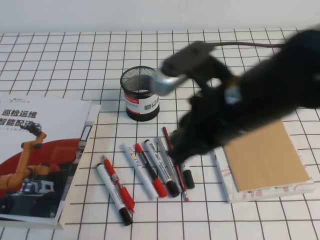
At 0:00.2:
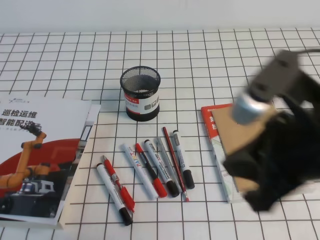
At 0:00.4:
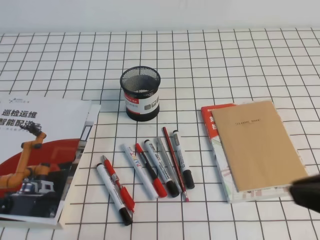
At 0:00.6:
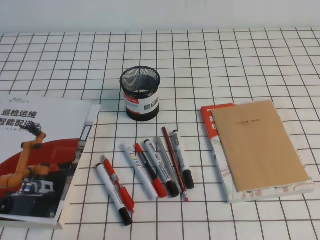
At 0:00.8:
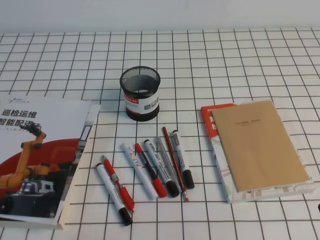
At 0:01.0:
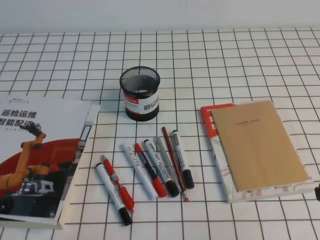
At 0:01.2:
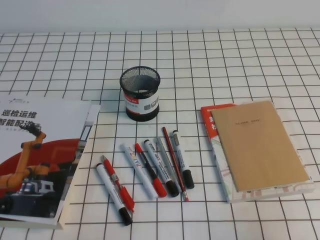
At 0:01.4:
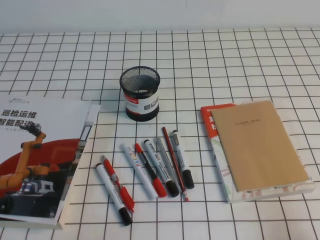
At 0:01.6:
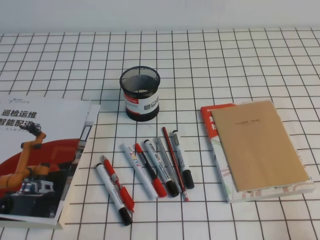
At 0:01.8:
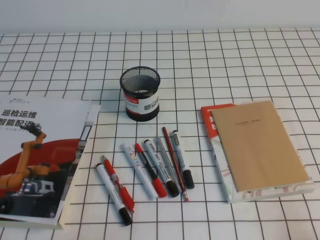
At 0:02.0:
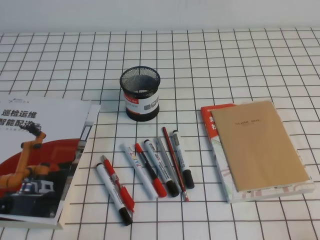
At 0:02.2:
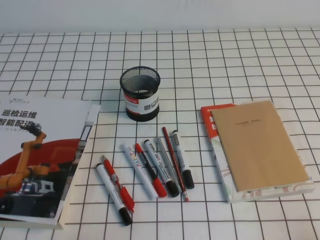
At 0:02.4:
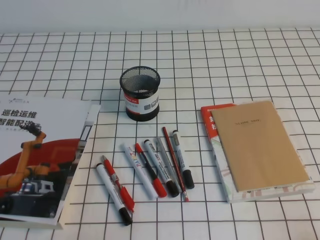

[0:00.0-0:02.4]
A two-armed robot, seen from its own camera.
Step, 0:00.0 to 0:02.4: Pick up the pen from the pen holder.
0:00.0 to 0:01.2: The right gripper is displaced to the right, backward and downward by roughly 25 cm.
0:01.2 to 0:02.4: The right gripper moves downward, approximately 10 cm.

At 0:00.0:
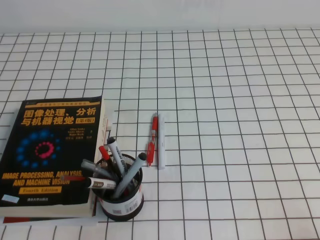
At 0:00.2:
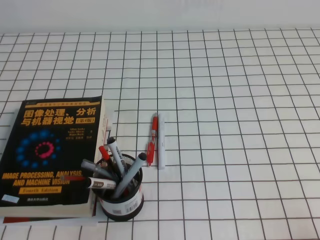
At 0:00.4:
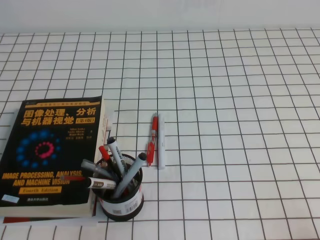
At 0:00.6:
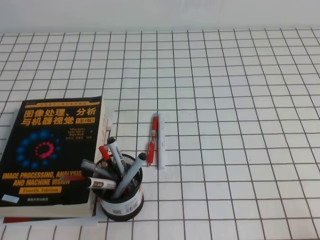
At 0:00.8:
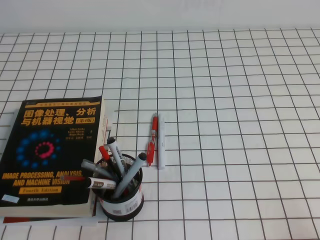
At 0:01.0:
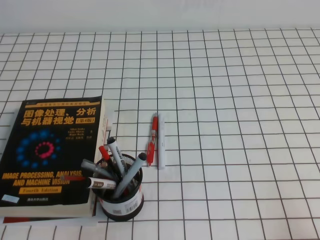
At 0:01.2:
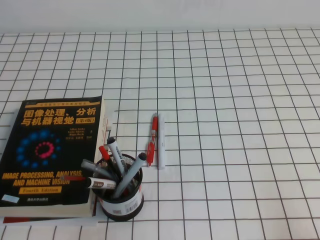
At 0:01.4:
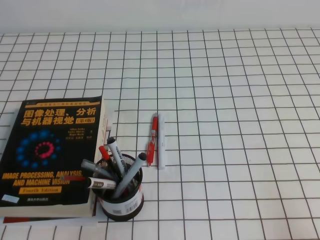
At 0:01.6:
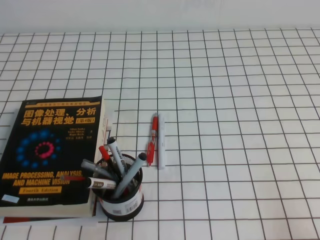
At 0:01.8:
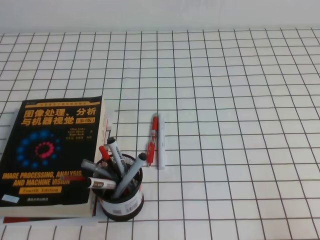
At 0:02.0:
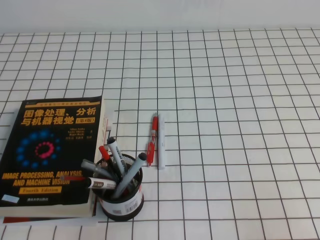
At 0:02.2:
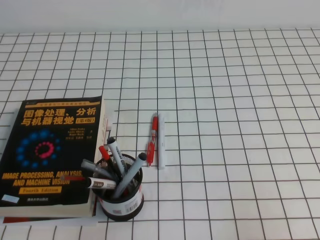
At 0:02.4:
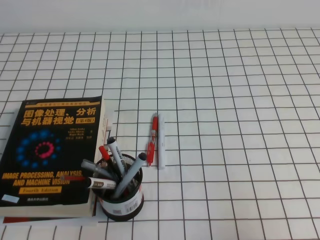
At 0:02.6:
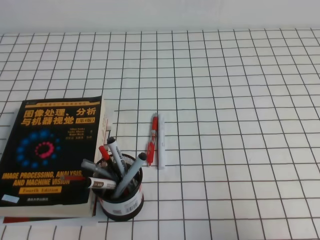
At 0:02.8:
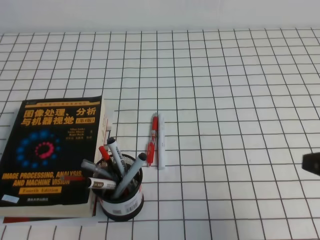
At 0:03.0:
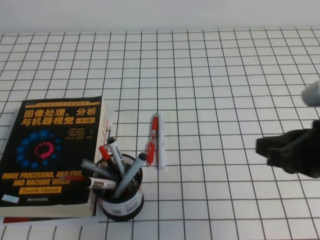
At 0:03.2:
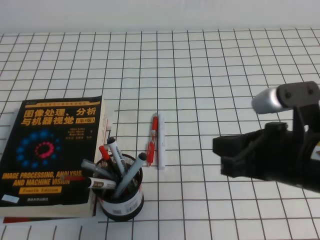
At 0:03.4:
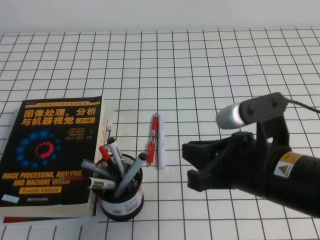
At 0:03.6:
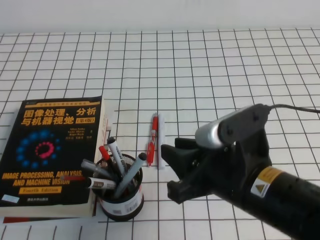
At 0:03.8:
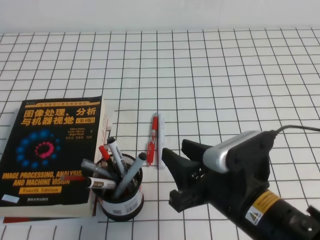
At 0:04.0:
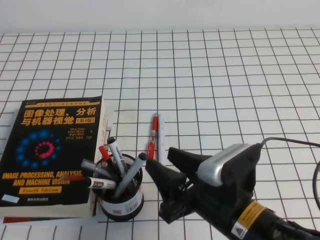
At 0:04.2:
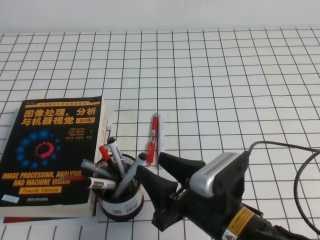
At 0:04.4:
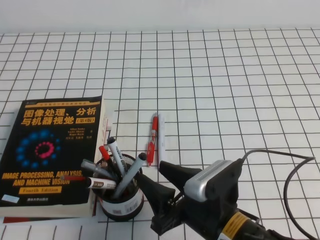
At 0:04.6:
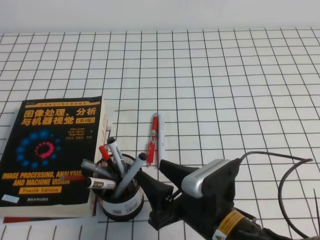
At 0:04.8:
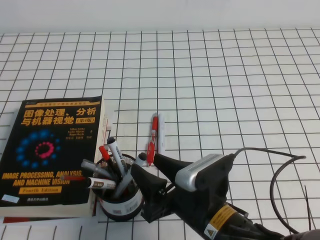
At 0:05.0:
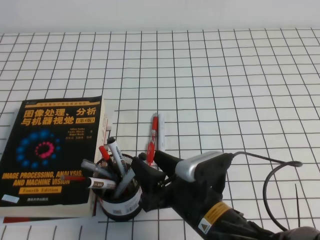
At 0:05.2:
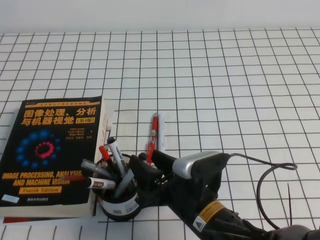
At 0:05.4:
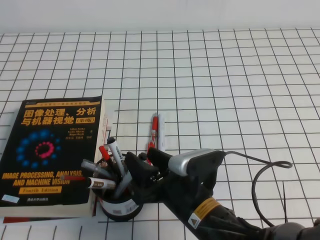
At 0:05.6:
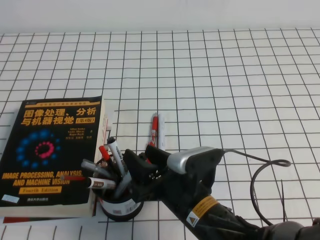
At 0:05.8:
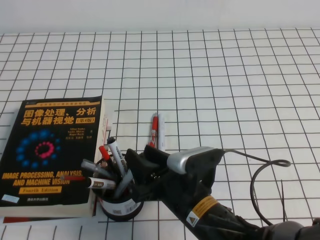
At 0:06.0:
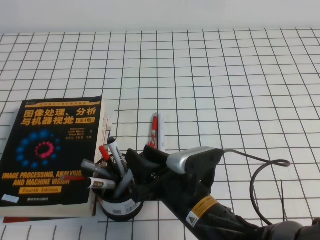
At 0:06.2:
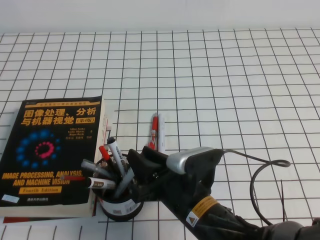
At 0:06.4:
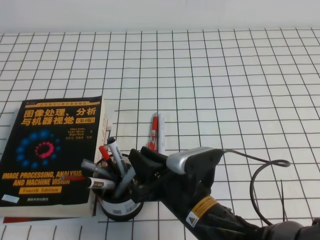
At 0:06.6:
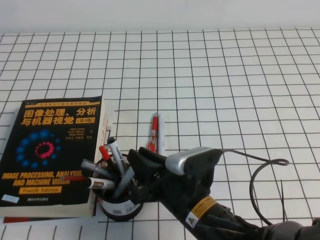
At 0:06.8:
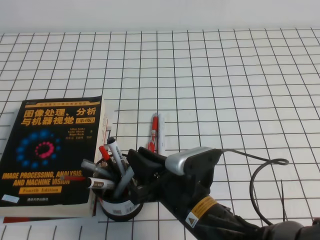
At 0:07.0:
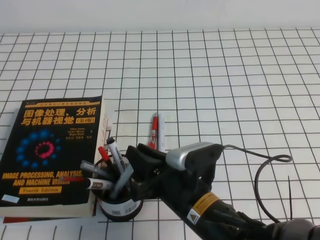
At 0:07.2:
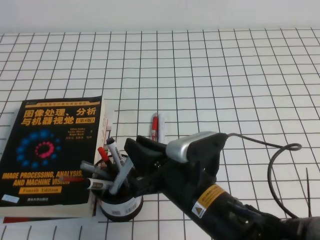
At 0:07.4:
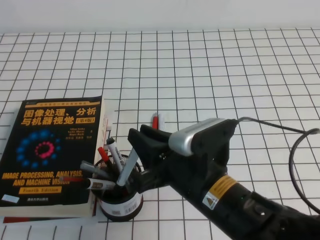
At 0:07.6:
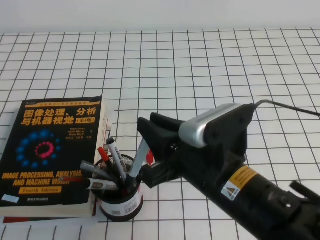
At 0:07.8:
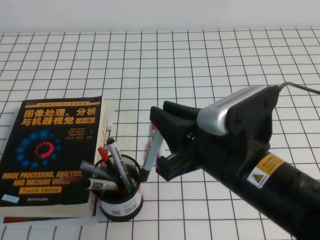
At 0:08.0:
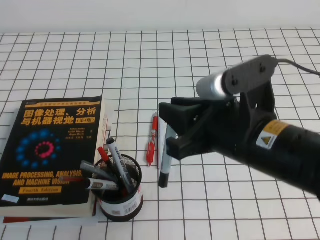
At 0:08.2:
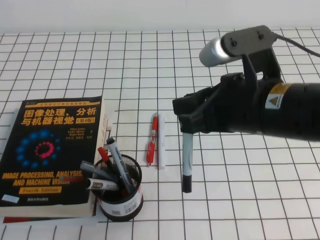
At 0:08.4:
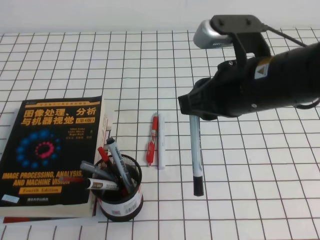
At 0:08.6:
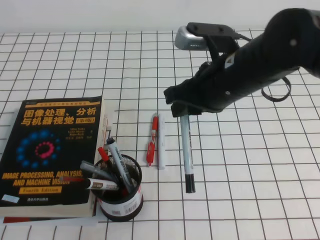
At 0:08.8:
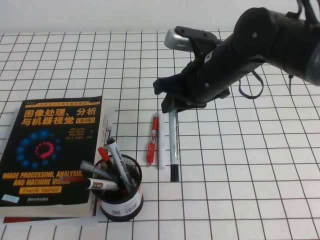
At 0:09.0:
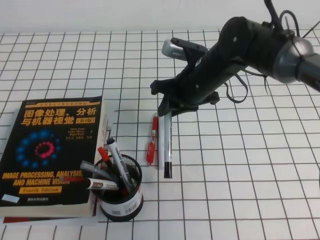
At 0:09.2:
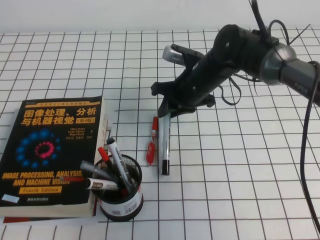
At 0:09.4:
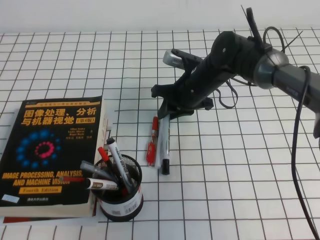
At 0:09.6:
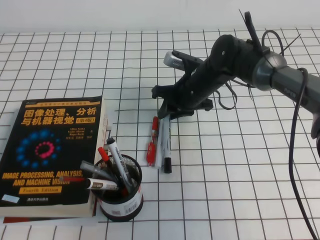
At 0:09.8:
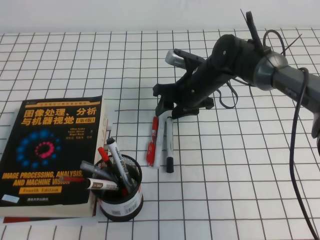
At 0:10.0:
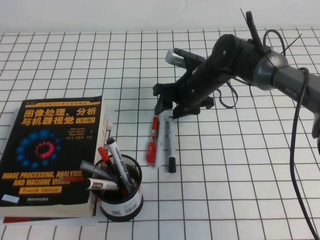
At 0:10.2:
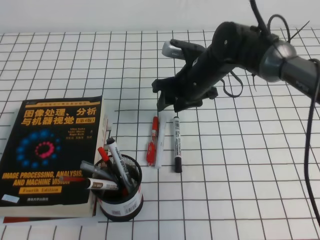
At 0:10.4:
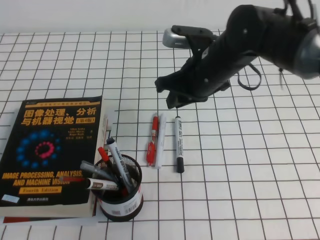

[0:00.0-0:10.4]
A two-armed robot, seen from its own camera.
0:01.4 to 0:03.0: The right gripper heads forward, to the left and upward, covering about 20 cm.
0:03.0 to 0:04.4: The right gripper is displaced to the left and downward by about 20 cm, and opens.
0:04.4 to 0:06.0: The right gripper shifts by some 5 cm.
0:06.0 to 0:07.4: The right gripper is displaced upward by approximately 5 cm, and closes up.
0:07.4 to 0:09.0: The right gripper goes some 20 cm forward.
0:09.0 to 0:10.4: The right gripper reaches about 5 cm downward, then returns, and opens, then closes once more.

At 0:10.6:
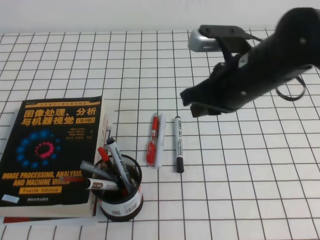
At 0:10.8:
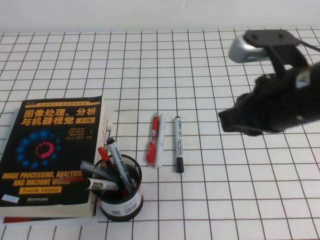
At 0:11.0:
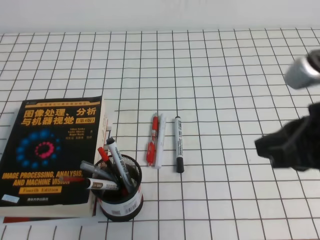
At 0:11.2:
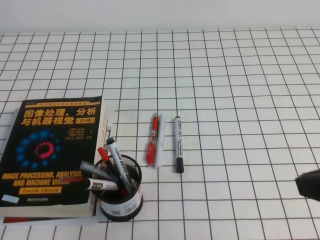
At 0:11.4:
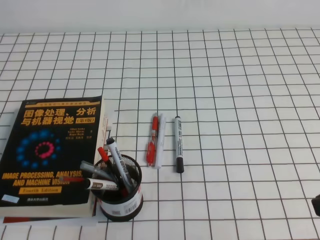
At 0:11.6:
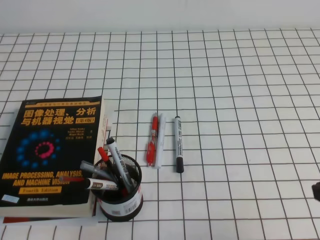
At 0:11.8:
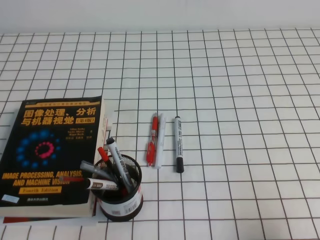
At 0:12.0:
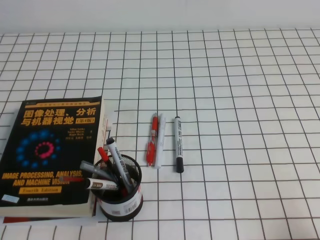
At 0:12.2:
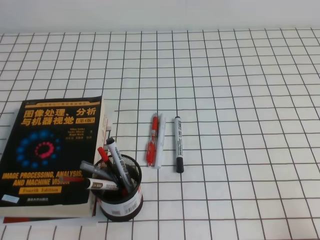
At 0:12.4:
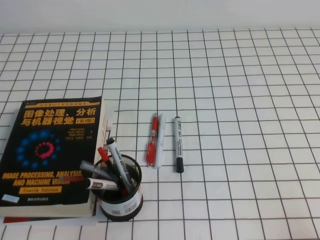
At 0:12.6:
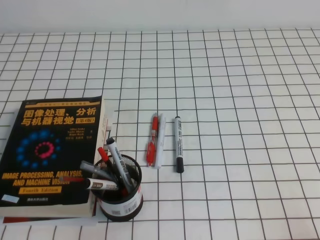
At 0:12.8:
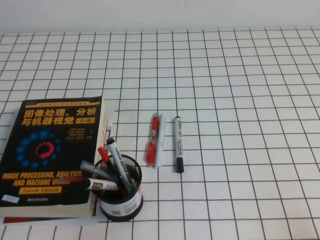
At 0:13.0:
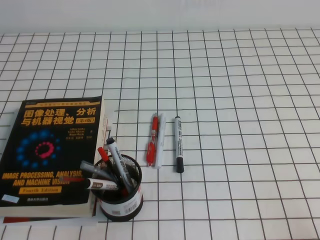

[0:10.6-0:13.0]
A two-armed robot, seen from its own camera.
Step, 0:10.6 to 0:13.0: Pick up the pen from the pen holder.
0:10.6 to 0:11.8: The right gripper travels backward and to the right by some 25 cm.
0:11.8 to 0:13.0: The right gripper is displaced downward and backward by approximately 10 cm.
